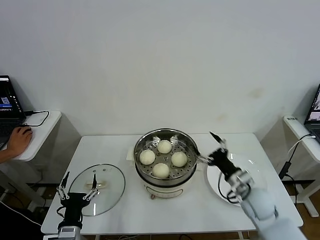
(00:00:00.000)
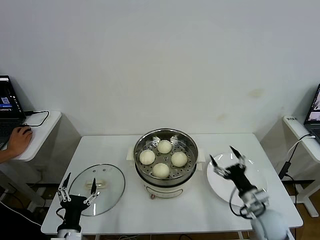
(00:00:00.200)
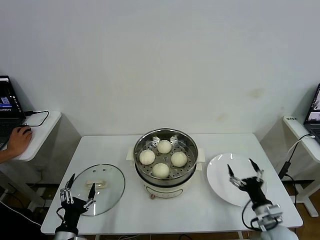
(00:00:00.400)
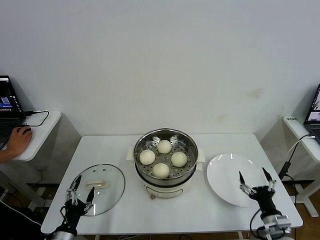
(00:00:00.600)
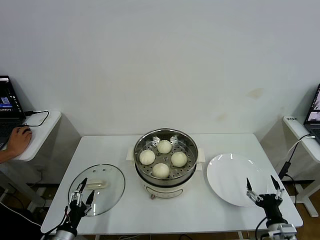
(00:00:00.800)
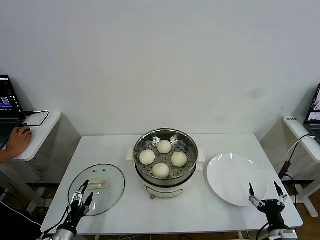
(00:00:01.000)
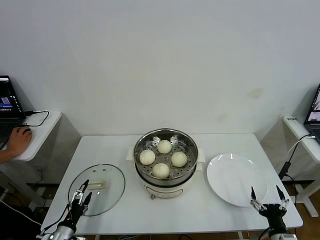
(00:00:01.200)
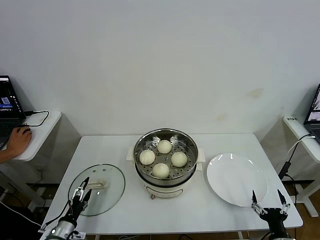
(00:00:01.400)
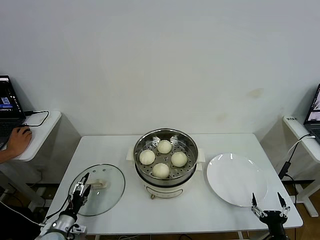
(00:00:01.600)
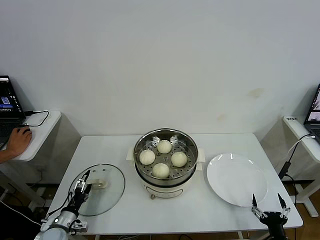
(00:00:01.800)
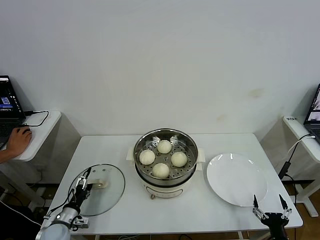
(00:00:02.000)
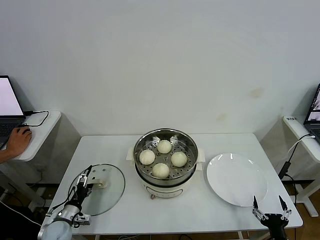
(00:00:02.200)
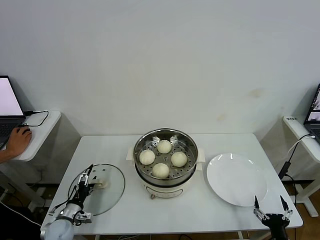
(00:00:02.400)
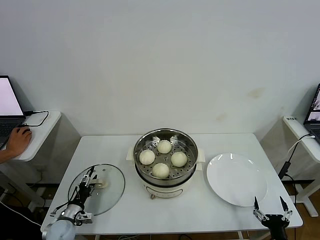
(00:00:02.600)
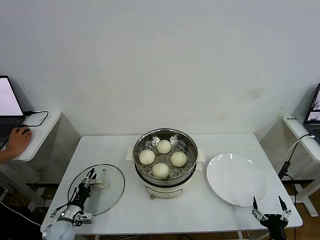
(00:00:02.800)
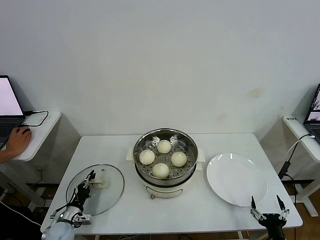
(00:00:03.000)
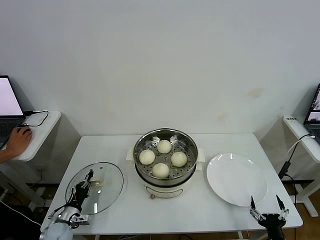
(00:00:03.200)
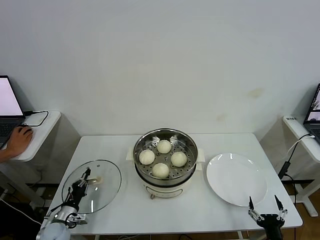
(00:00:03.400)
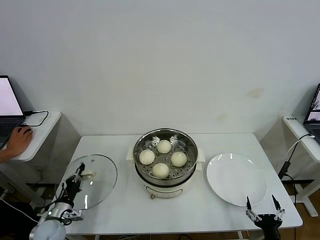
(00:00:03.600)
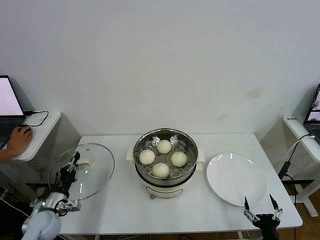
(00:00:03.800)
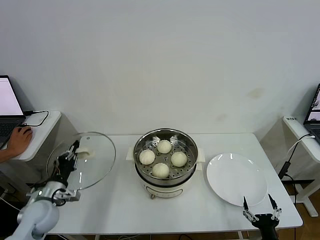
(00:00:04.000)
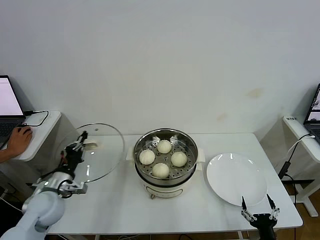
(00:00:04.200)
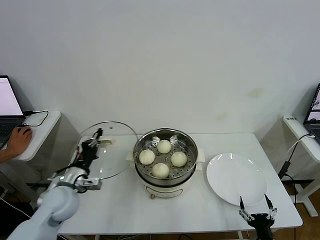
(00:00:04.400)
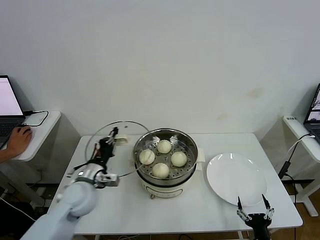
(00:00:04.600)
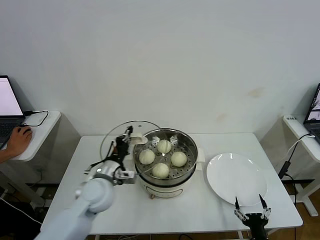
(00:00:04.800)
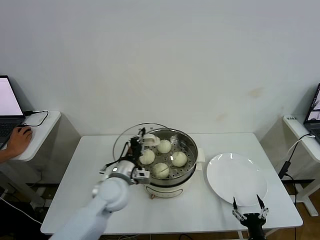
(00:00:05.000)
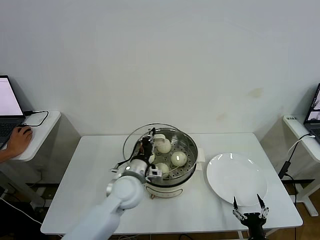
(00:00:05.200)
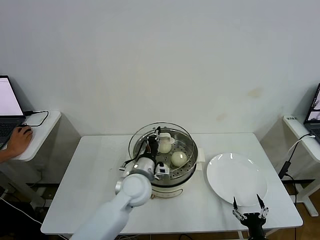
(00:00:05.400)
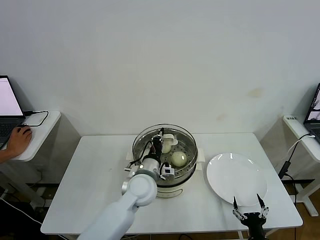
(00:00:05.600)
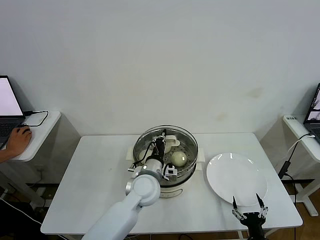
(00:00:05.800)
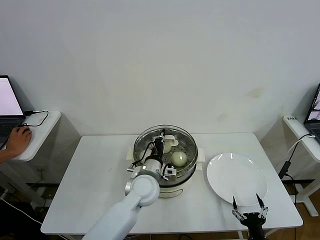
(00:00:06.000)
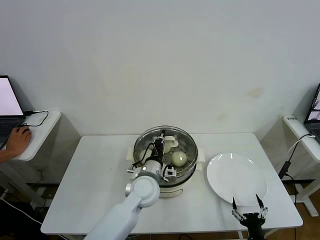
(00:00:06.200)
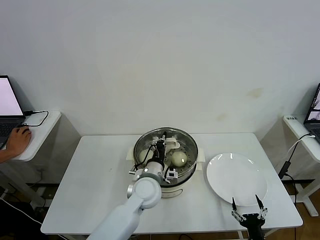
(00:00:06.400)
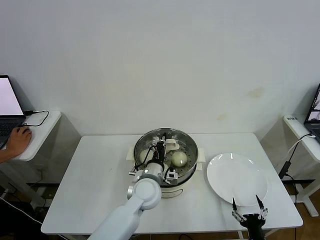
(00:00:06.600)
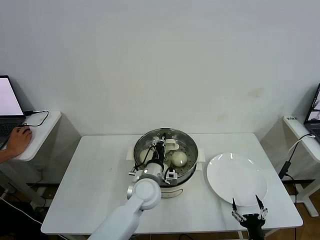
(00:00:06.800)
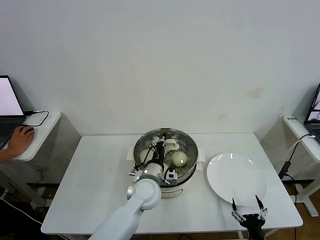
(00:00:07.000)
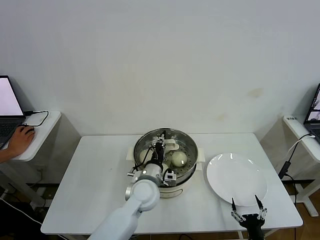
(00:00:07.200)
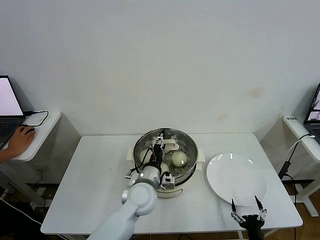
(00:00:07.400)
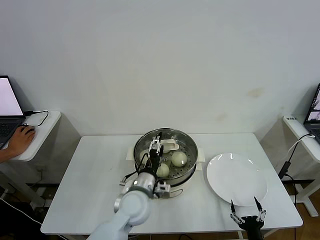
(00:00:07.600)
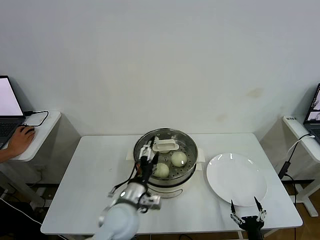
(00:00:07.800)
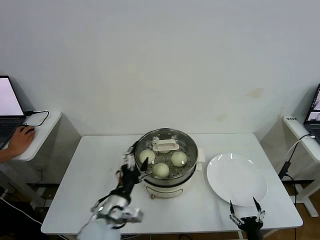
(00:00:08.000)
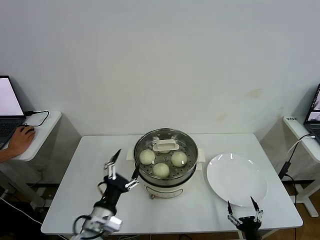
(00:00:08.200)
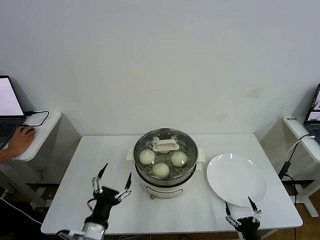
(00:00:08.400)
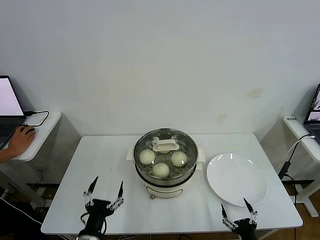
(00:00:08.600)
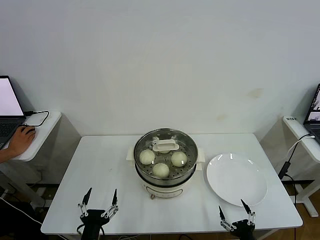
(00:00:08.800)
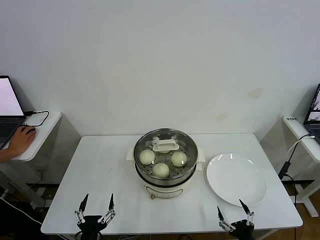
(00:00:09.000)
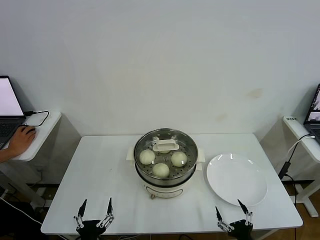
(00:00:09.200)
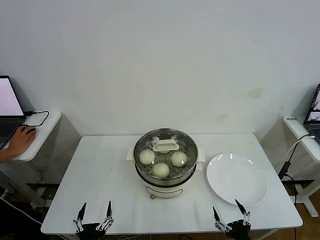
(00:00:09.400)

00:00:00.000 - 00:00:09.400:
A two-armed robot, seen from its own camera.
Step, 00:00:00.000 - 00:00:03.200: Grasp the pot lid with left gripper.
Step, 00:00:03.400 - 00:00:07.600: Place the pot lid on the steamer with left gripper.
00:00:00.000 - 00:00:01.600: The right gripper goes some 25 cm backward and downward. Meanwhile the left gripper moves to the left, downward and forward, about 15 cm.
00:00:01.600 - 00:00:03.200: The left gripper shifts by about 5 cm, and closes its fingers.
00:00:03.200 - 00:00:04.800: The left gripper goes some 30 cm upward and to the right.
00:00:04.800 - 00:00:06.200: The left gripper moves to the right, approximately 15 cm.
00:00:06.200 - 00:00:07.800: The left gripper goes roughly 10 cm backward, and opens.
00:00:07.800 - 00:00:09.400: The right gripper moves upward, about 5 cm. The left gripper goes roughly 25 cm backward, to the left and downward.

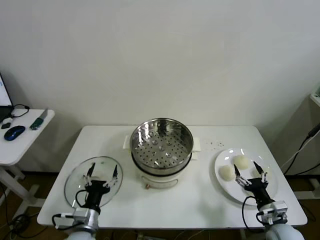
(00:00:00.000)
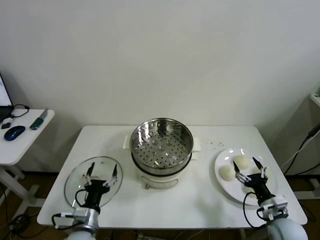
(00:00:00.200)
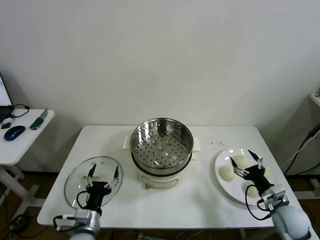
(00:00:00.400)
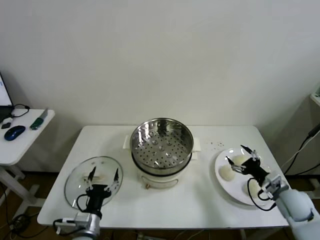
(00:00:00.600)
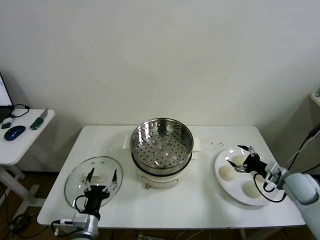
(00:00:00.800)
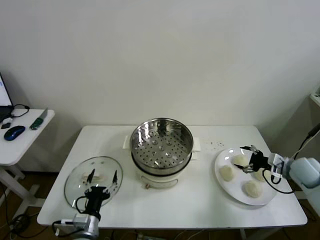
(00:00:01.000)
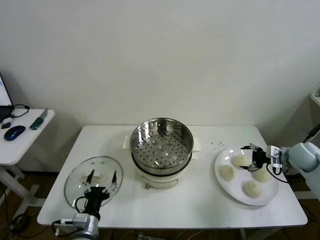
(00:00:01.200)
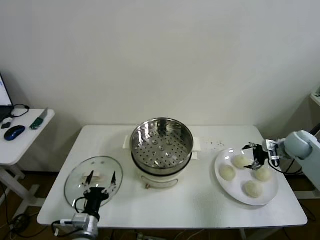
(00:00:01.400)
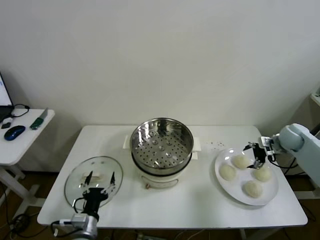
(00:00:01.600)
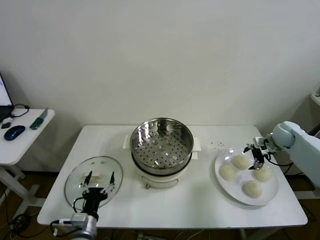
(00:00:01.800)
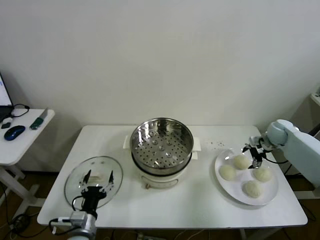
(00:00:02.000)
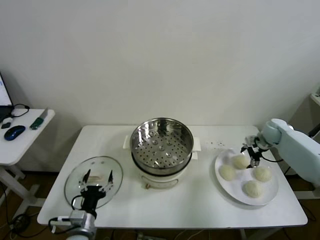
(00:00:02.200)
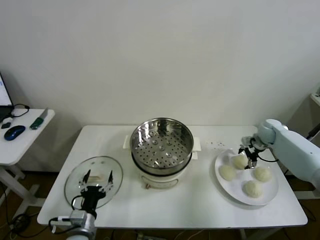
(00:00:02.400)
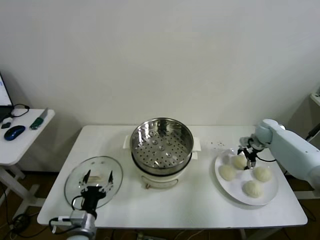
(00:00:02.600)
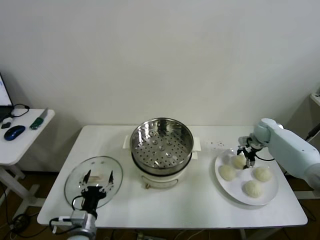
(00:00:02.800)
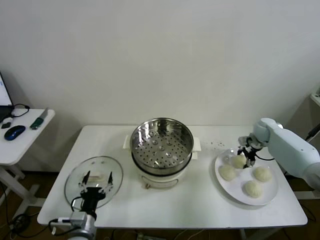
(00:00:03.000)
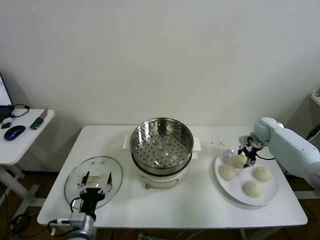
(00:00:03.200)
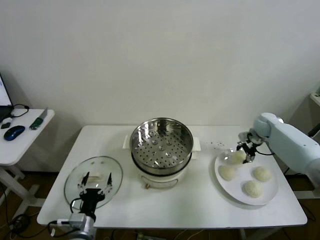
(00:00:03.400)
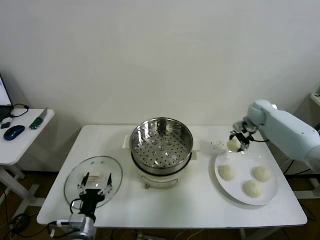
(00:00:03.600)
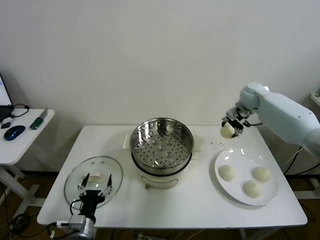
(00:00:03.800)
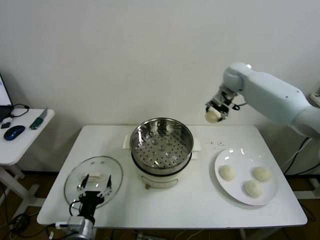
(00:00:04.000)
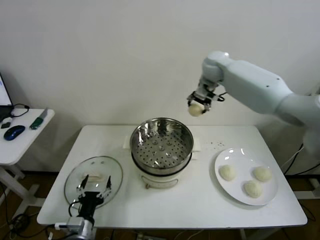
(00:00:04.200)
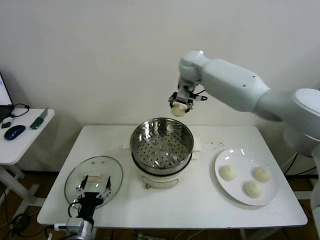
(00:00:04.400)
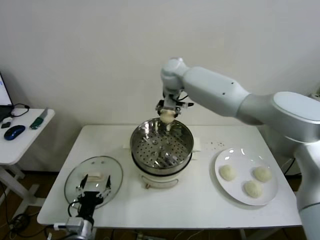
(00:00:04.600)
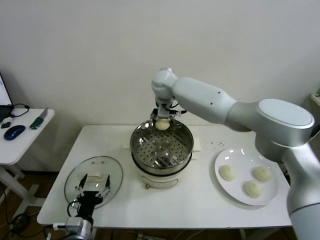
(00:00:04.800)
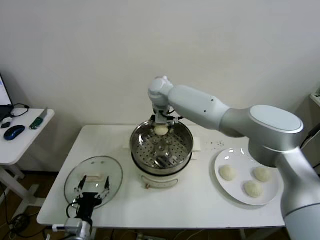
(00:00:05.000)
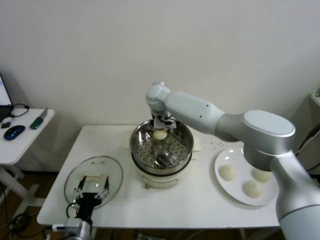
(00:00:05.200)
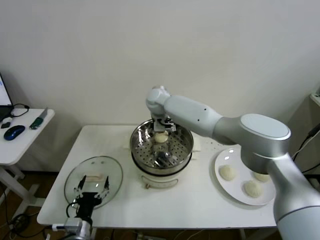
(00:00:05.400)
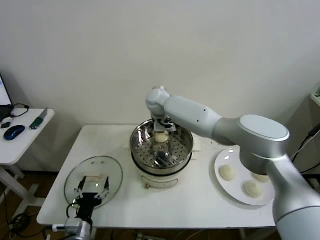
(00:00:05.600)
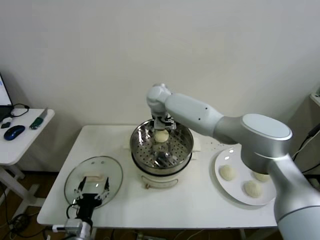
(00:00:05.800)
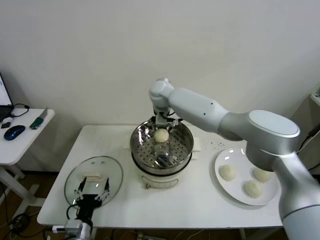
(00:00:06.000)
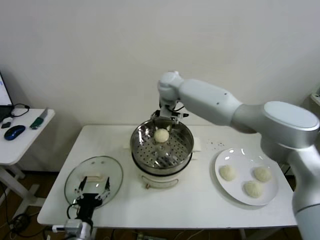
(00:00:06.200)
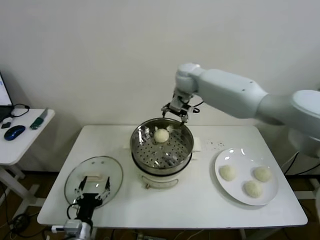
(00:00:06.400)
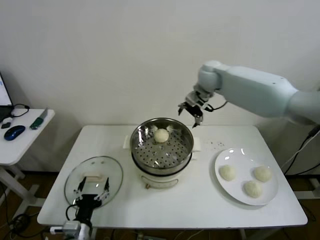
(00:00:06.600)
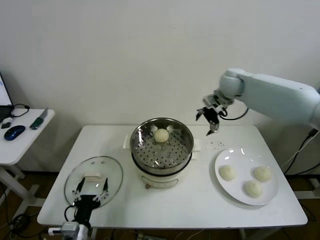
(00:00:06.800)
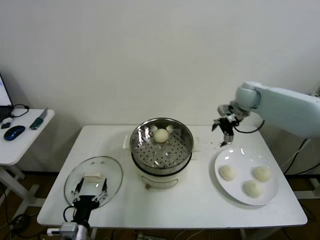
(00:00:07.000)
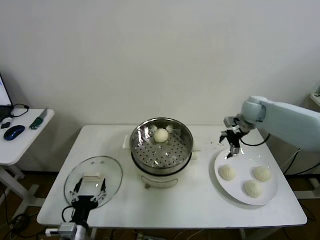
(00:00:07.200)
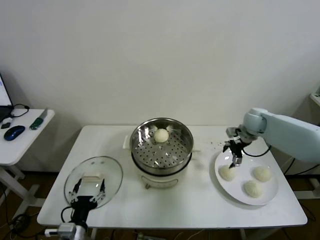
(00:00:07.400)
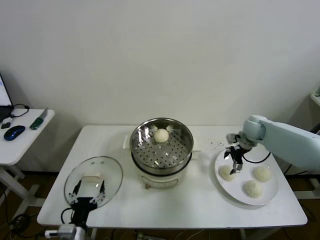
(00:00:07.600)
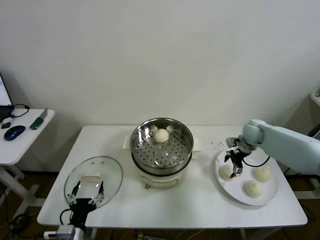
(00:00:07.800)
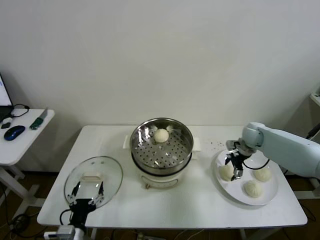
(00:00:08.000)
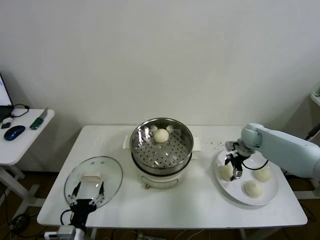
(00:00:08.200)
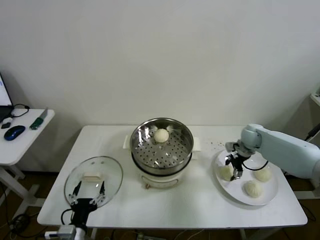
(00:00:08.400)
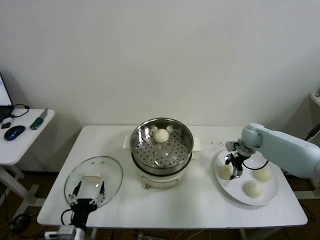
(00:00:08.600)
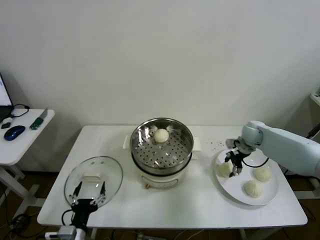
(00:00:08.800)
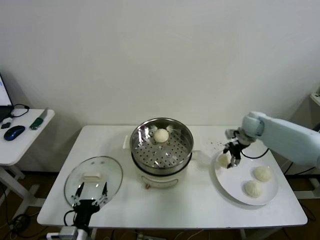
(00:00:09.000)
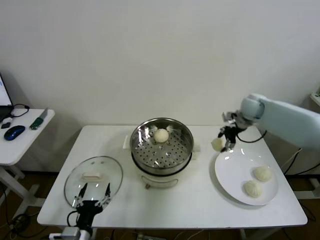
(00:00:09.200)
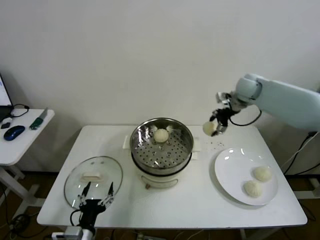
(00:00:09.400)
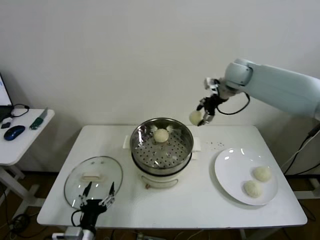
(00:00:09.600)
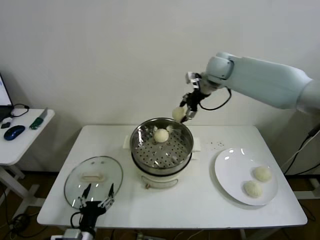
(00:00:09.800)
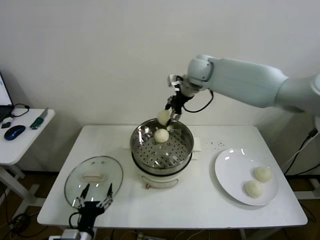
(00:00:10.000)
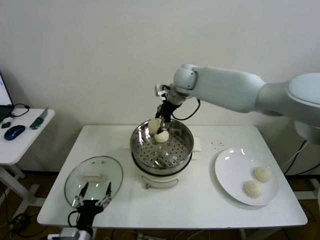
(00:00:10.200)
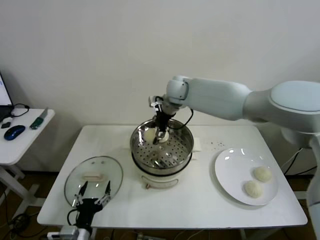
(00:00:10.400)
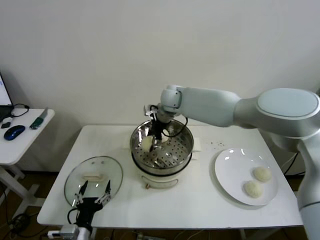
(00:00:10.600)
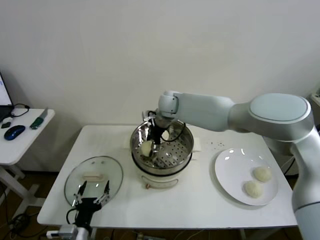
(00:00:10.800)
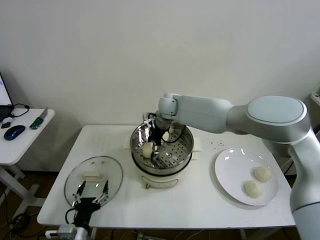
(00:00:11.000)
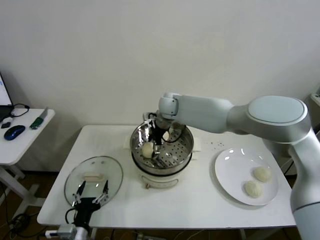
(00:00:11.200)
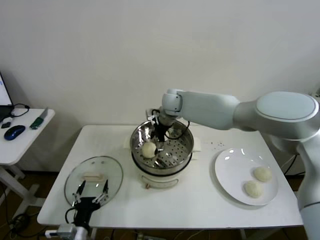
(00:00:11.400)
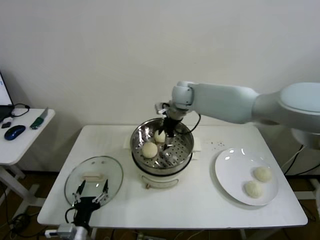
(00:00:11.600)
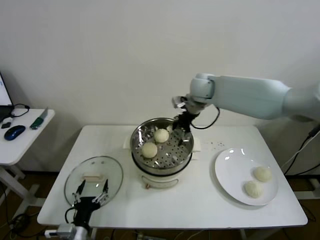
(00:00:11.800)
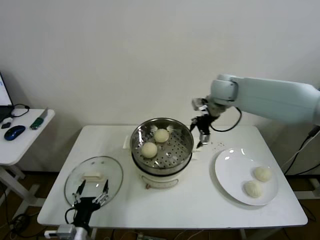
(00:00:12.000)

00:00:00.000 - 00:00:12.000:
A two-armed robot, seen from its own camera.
Step, 00:00:00.000 - 00:00:02.800: Grasp the baozi in the plate with right gripper.
Step, 00:00:03.000 - 00:00:05.400: Place the baozi on the steamer with right gripper.
Step, 00:00:05.600 - 00:00:08.200: Grasp the baozi in the plate with right gripper.
Step, 00:00:08.400 - 00:00:11.000: Place the baozi on the steamer with right gripper.
00:00:01.600 - 00:00:03.000: The right gripper shifts about 5 cm forward, and closes its fingers.
00:00:03.000 - 00:00:04.400: The right gripper is displaced to the left and upward by about 40 cm.
00:00:04.400 - 00:00:06.000: The right gripper travels downward and to the left by some 10 cm, and opens up.
00:00:06.000 - 00:00:07.600: The right gripper shifts some 40 cm to the right and downward.
00:00:07.600 - 00:00:09.000: The right gripper closes its fingers.
00:00:09.000 - 00:00:10.400: The right gripper goes approximately 30 cm to the left.
00:00:10.400 - 00:00:12.000: The right gripper shifts approximately 15 cm to the right, and opens its fingers.
